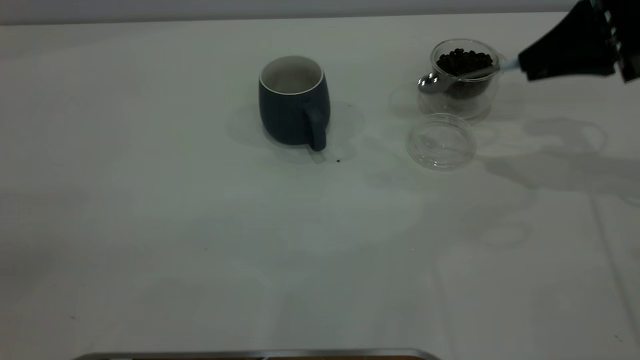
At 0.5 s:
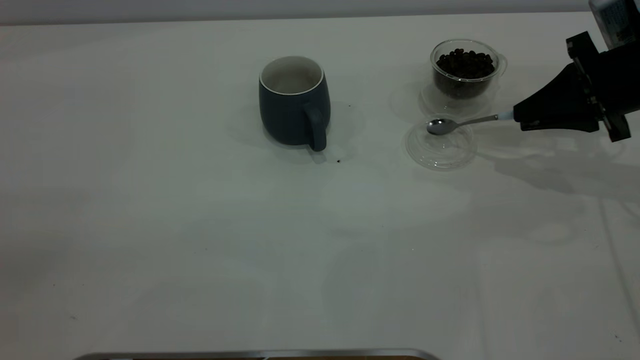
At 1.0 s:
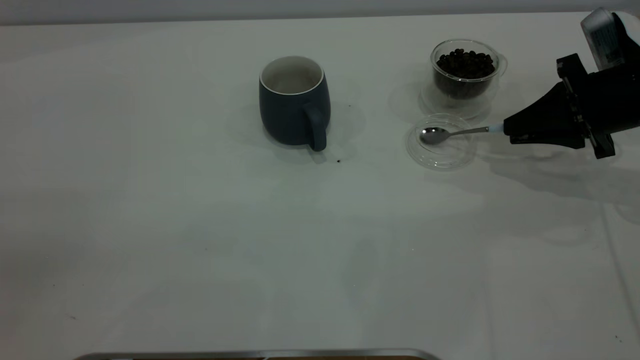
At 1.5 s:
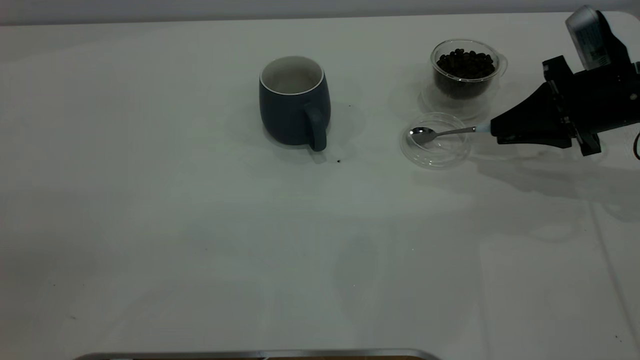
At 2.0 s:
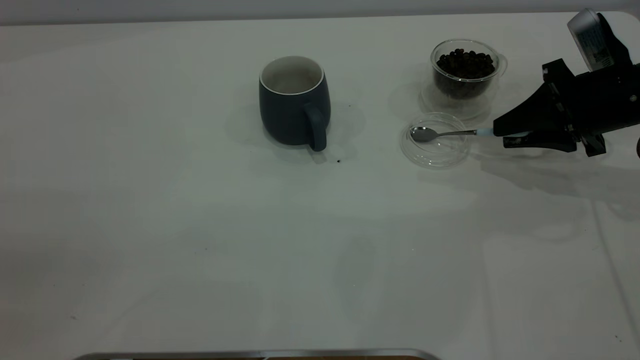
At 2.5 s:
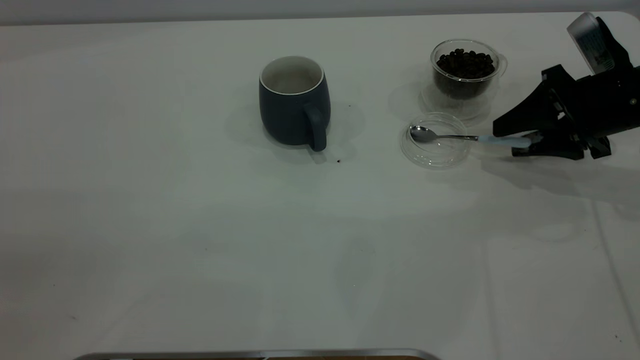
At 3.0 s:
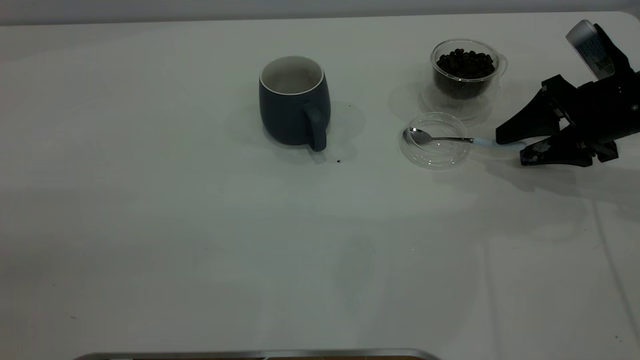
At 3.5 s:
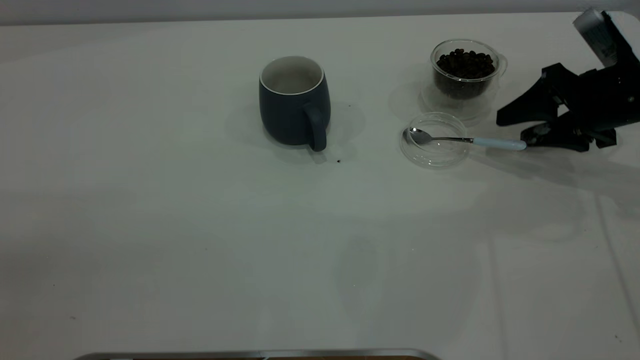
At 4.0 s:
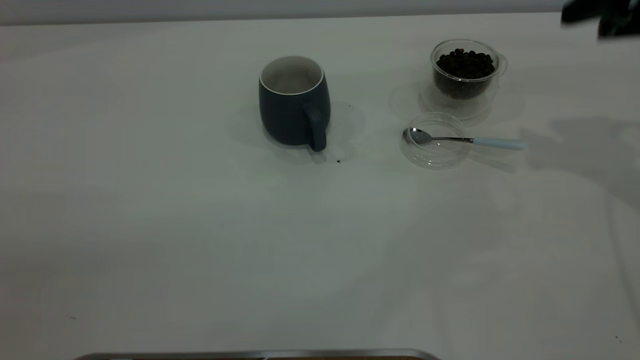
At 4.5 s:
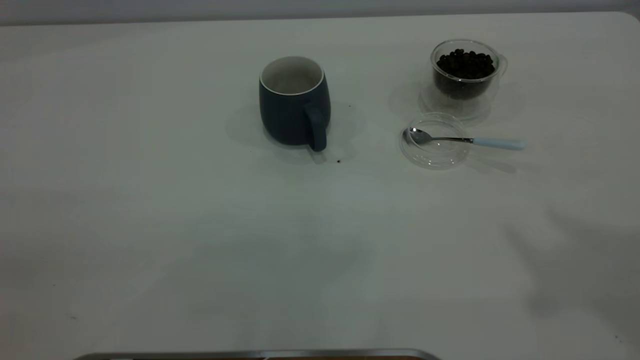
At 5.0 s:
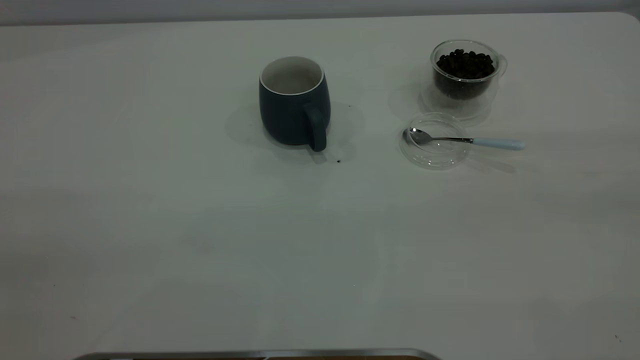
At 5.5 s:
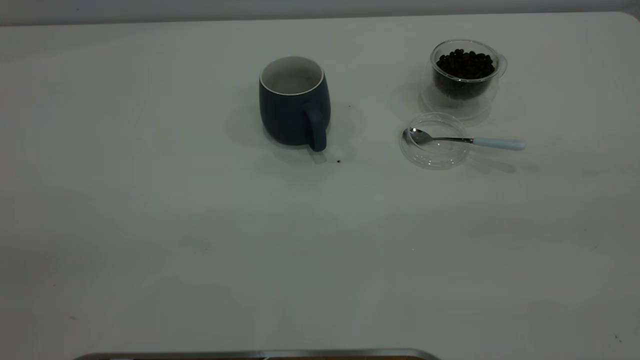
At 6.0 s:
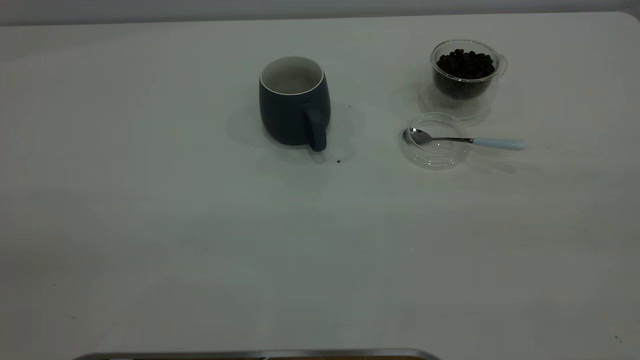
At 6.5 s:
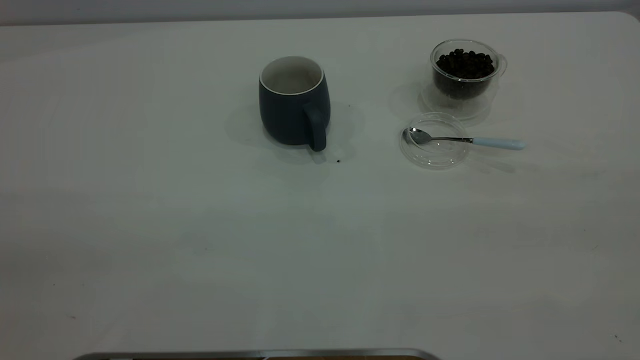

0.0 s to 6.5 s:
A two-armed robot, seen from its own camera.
Task of the whole recording: the left gripper place the grey cup in the center of the table, the right gripper take the blue spoon from the cup lid and scoop out the coffee beans from the coffee cup and put them into the grey cup, the right gripper put the spoon back into the cup lid.
Step, 0.0 to 3.5 s: Place the spoon back in its original place.
0.0 to 2.0 s: The right gripper is displaced downward by roughly 10 cm, and opens.
2.0 to 4.5 s: The right gripper goes about 35 cm upward and backward, and opens up.

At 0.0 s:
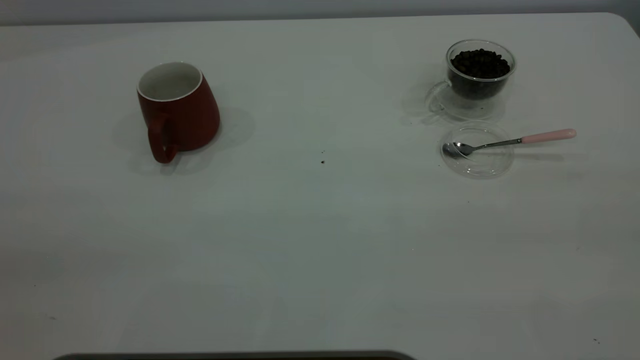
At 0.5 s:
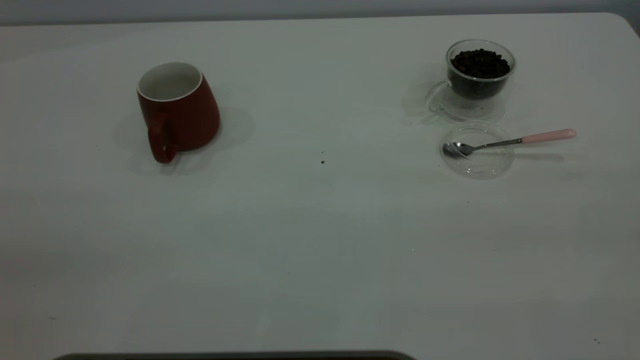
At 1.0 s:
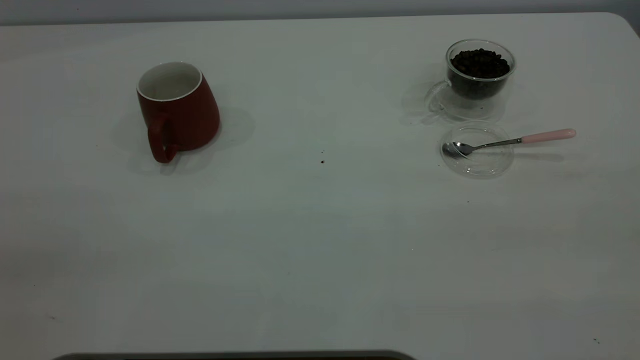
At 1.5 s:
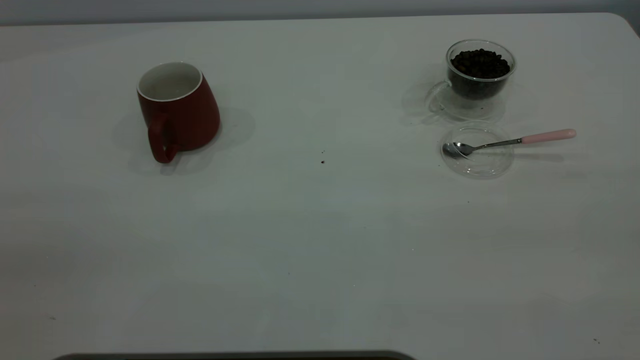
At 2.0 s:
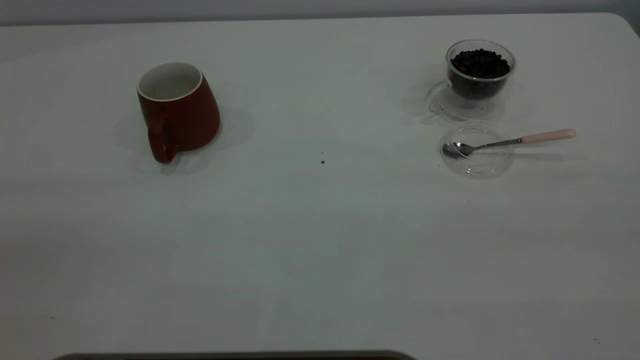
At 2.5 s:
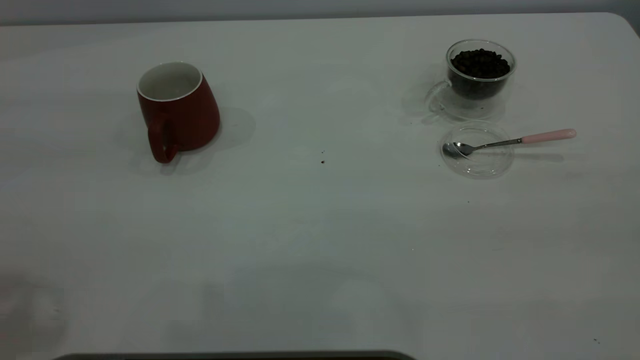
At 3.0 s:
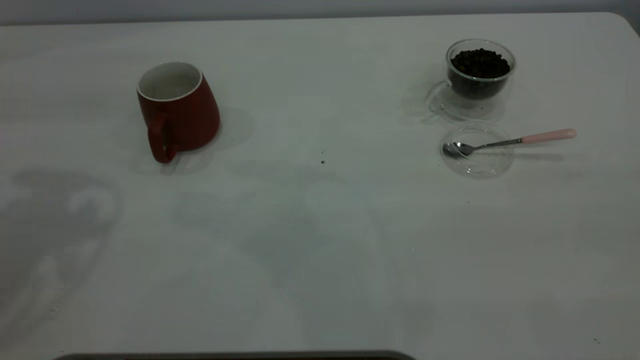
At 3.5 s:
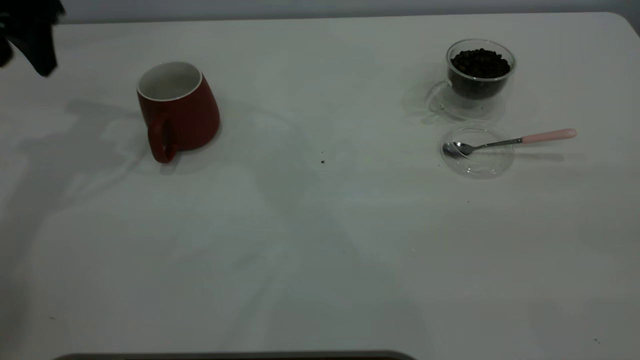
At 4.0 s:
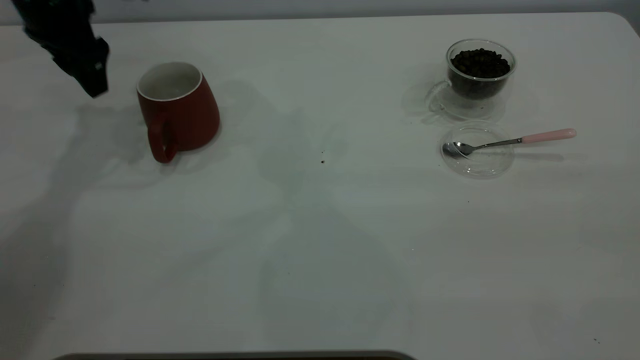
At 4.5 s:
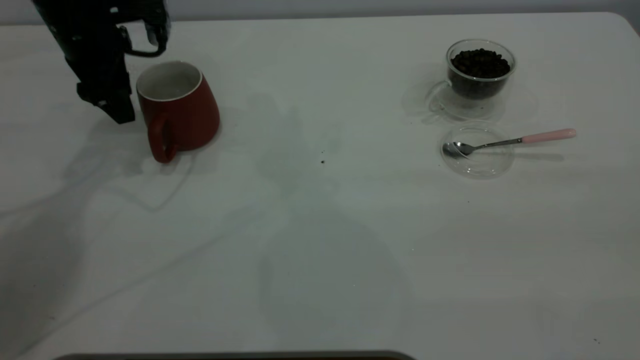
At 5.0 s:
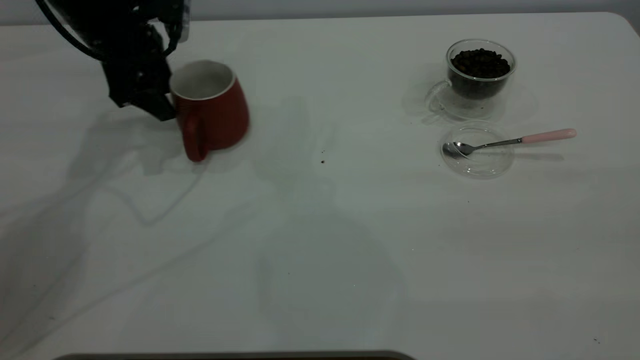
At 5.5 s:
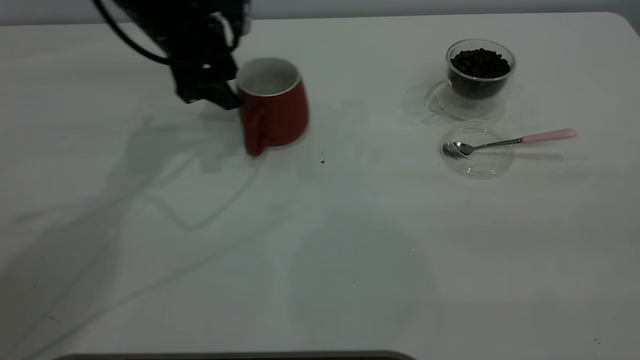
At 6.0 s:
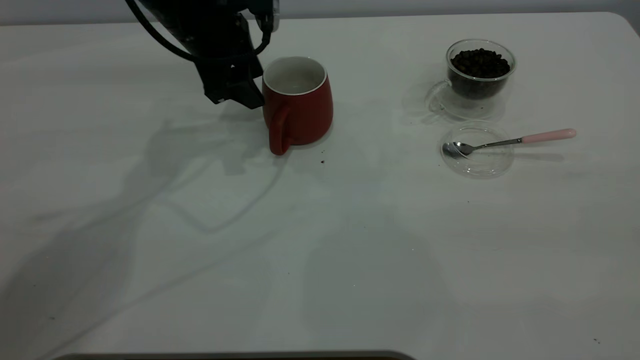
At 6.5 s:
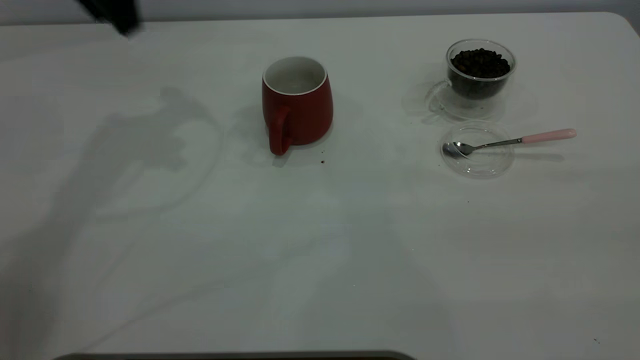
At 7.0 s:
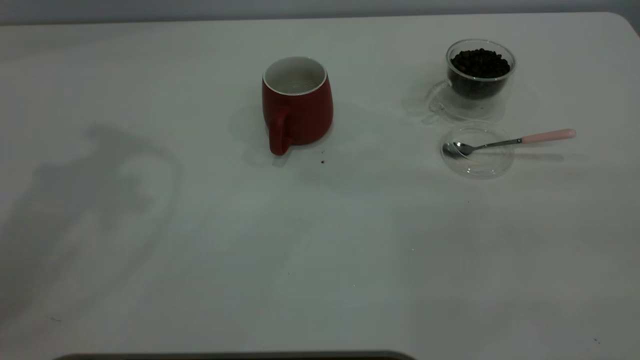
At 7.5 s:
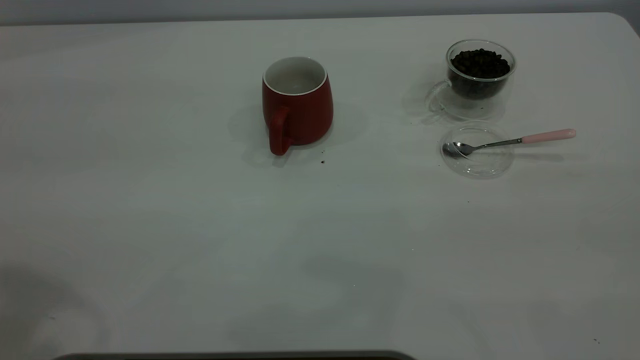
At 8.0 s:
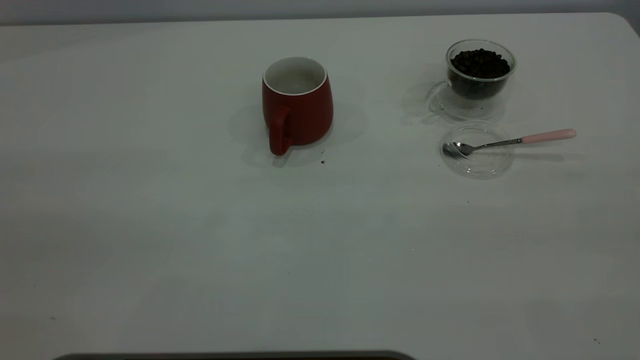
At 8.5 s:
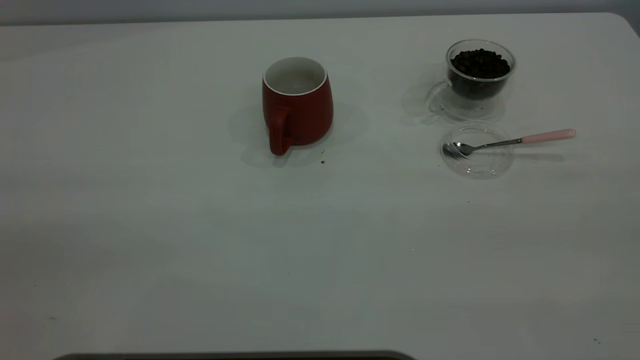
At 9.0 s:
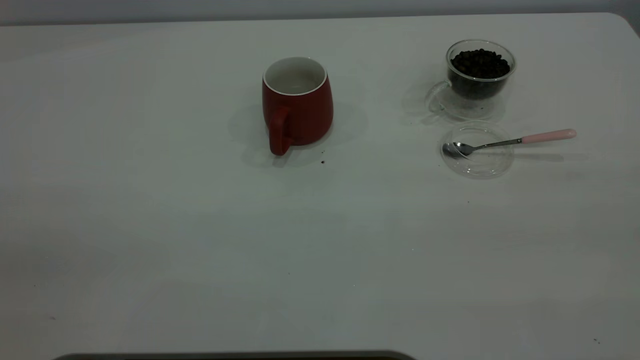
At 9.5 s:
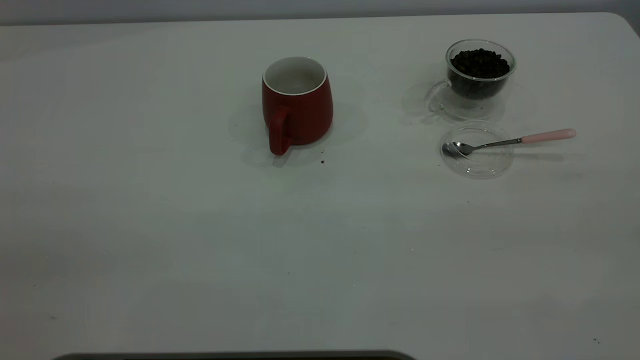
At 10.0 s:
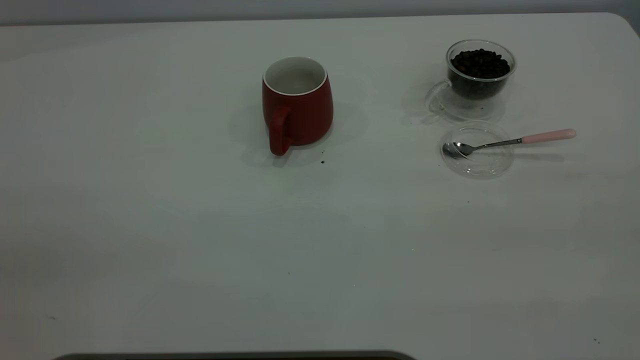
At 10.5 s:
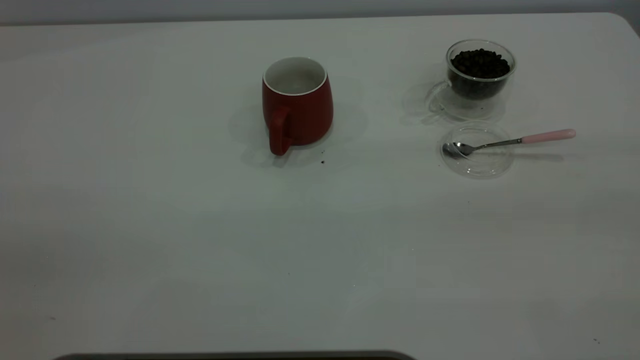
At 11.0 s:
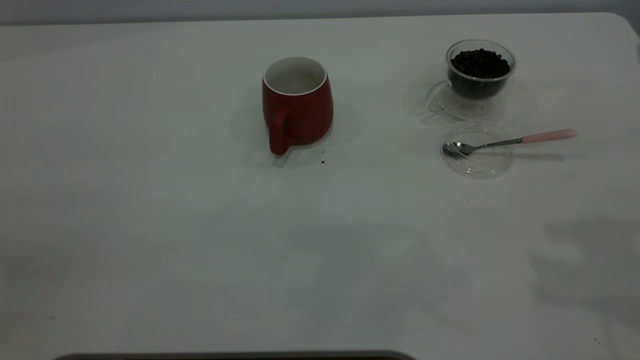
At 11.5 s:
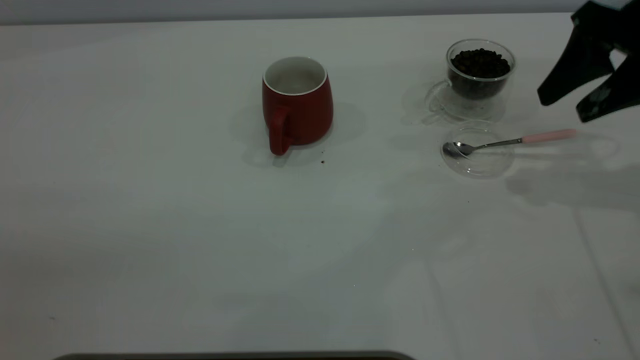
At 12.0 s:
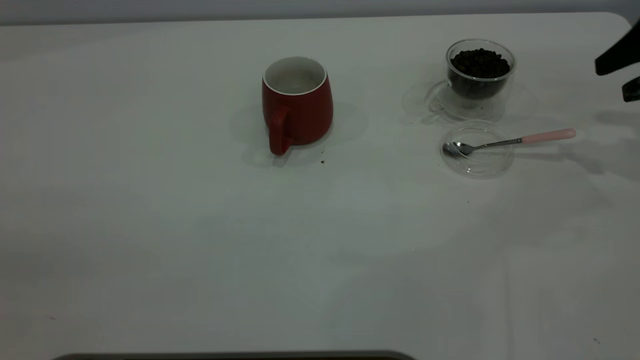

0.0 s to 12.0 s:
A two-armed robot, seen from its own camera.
Task of the whole recording: the left gripper place the red cup in the center of the table, the right gripper take the pink spoon from the cup lid and scoop out the coffee beans from the coffee cup and put them into the red cup, the right gripper put the spoon back into the cup lid.
Step, 0.0 to 6.0 s: Move the cup to the center of view.
2.0 to 4.0 s: The left gripper moves forward and downward, some 50 cm, and opens its fingers.
4.0 to 6.0 s: The left gripper shifts some 10 cm to the right.
6.0 to 8.0 s: The left gripper goes about 40 cm backward and upward.
10.0 to 12.0 s: The right gripper shifts approximately 40 cm forward and downward.

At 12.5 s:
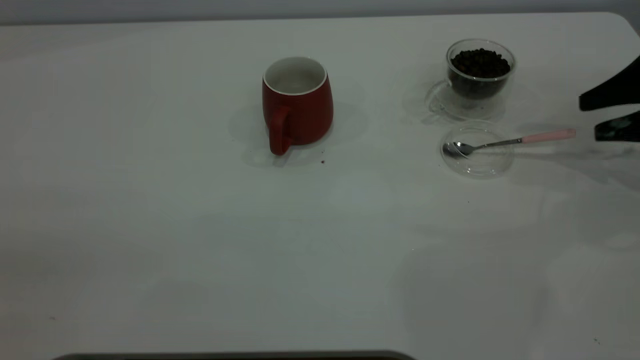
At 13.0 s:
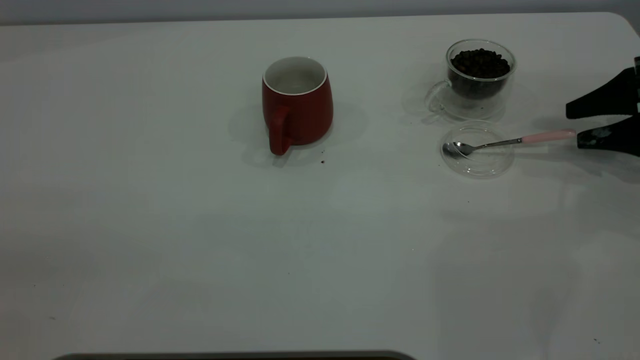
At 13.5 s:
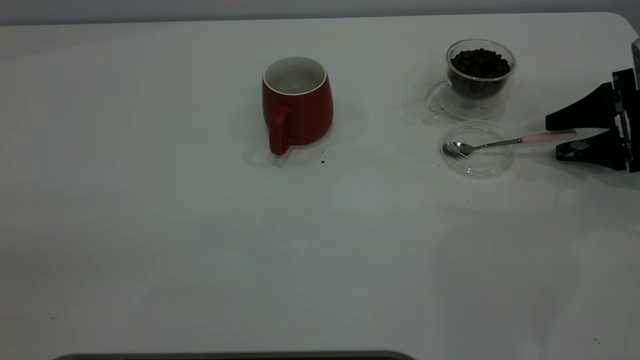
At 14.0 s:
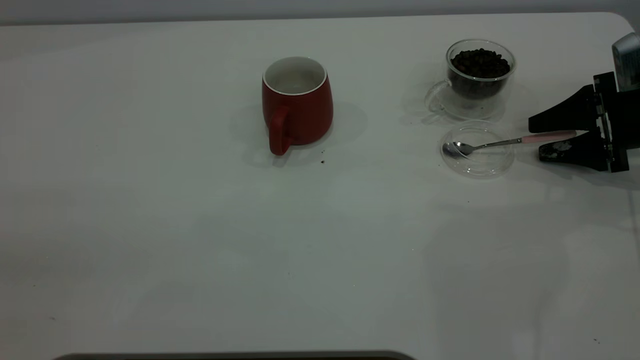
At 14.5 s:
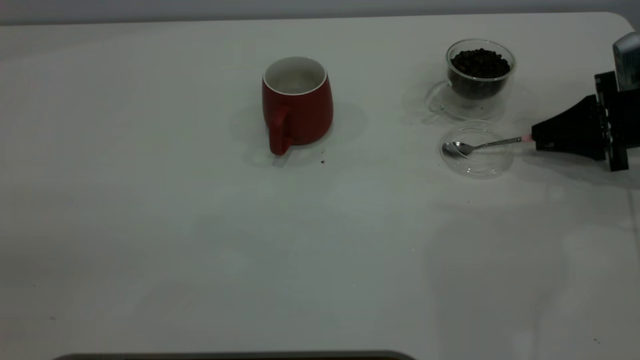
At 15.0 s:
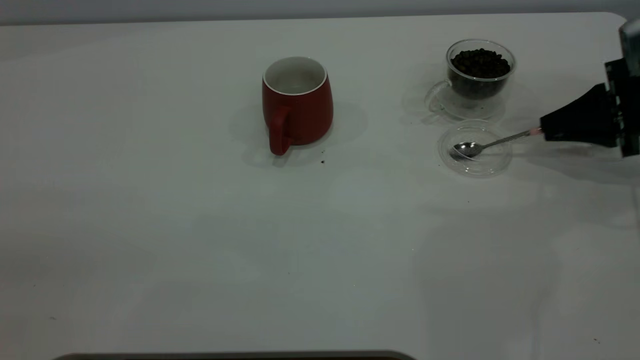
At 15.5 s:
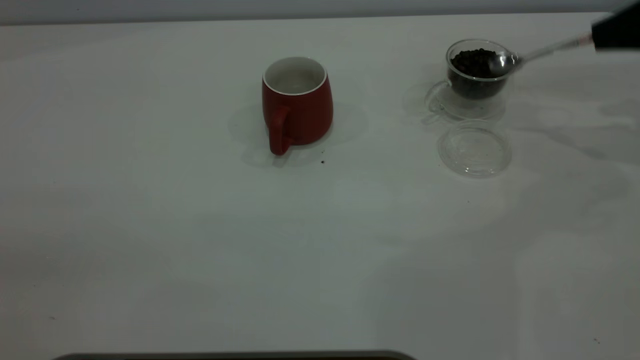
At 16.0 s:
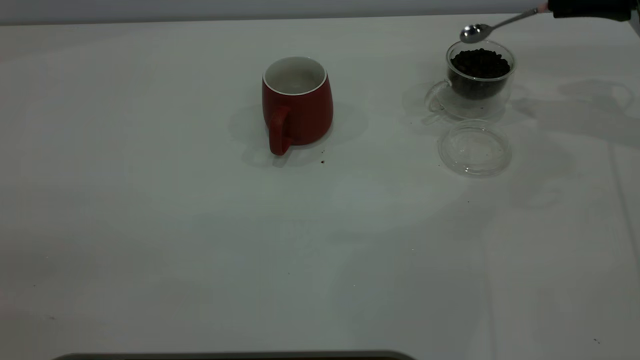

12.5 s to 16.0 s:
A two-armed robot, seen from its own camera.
Task of the whole recording: the left gripper place the red cup in the center of the table, the right gripper take the pink spoon from the cup lid and scoop out the coffee beans from the coffee cup and put them into the red cup, the right gripper put the spoon back into the cup lid.
Step, 12.5 to 15.0 s: Pick up the spoon.
12.5 to 14.5 s: The right gripper goes roughly 5 cm downward, and closes.
14.5 to 16.0 s: The right gripper shifts roughly 15 cm upward and forward.
